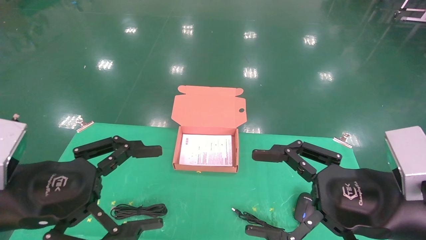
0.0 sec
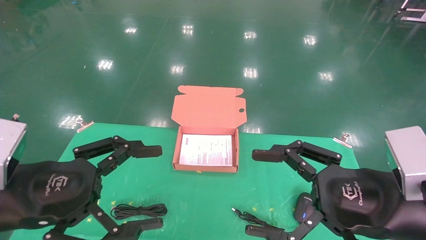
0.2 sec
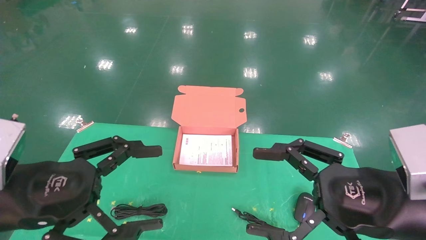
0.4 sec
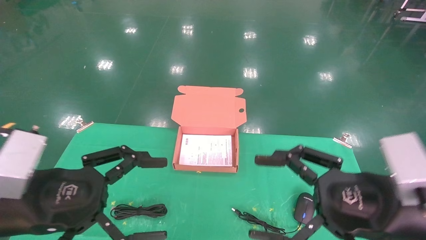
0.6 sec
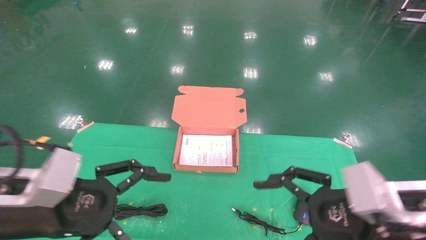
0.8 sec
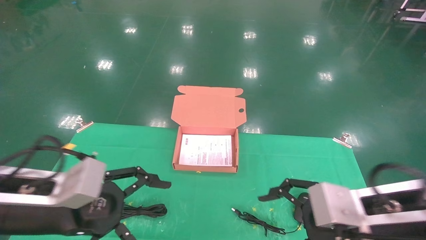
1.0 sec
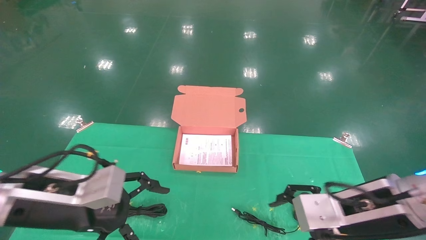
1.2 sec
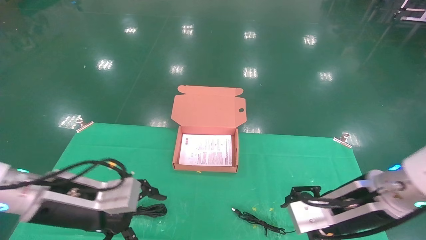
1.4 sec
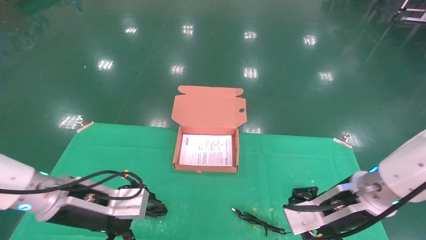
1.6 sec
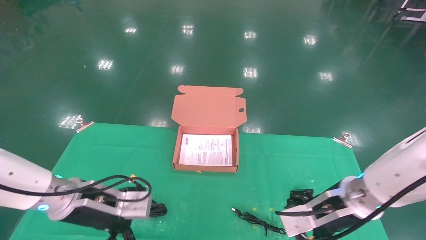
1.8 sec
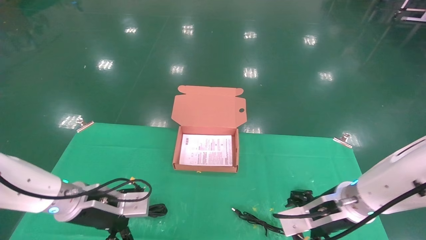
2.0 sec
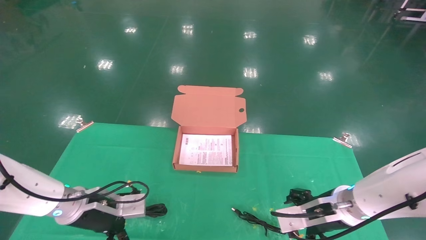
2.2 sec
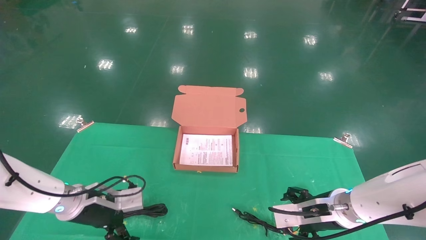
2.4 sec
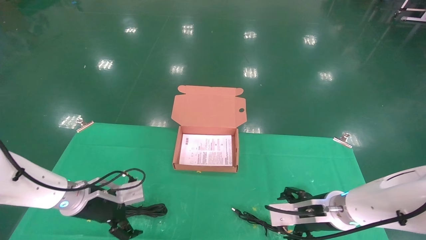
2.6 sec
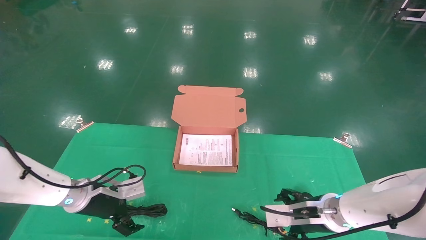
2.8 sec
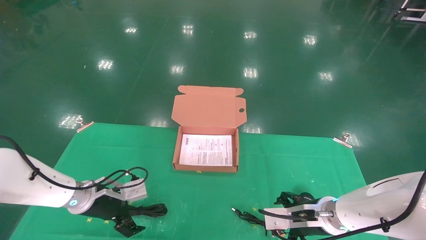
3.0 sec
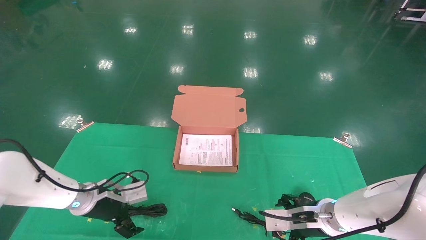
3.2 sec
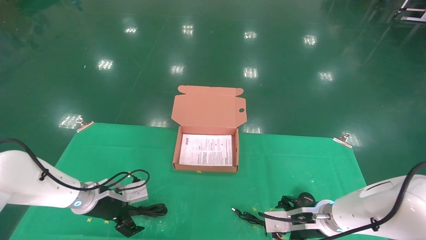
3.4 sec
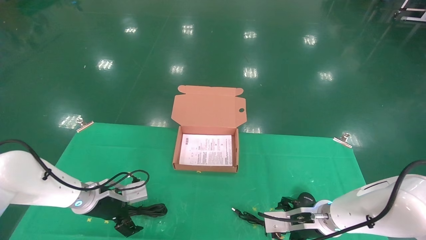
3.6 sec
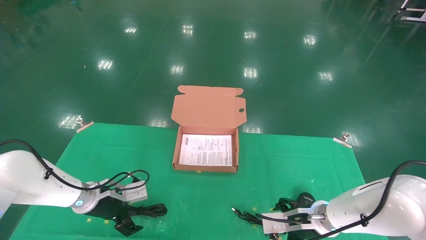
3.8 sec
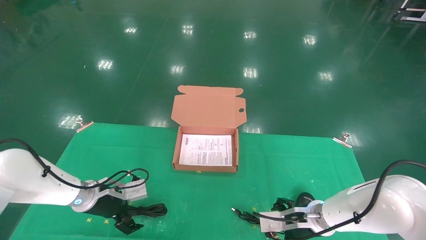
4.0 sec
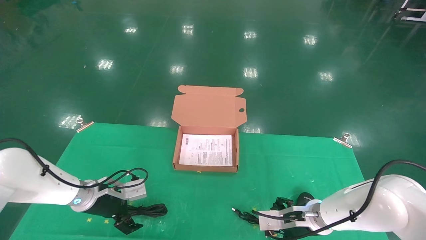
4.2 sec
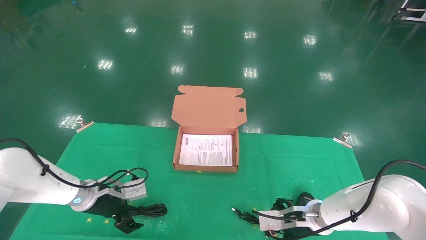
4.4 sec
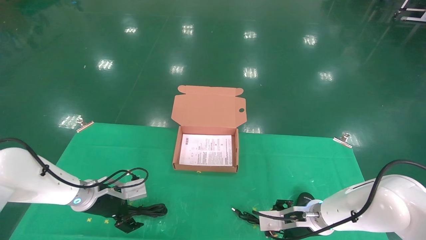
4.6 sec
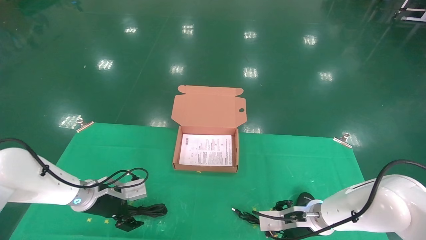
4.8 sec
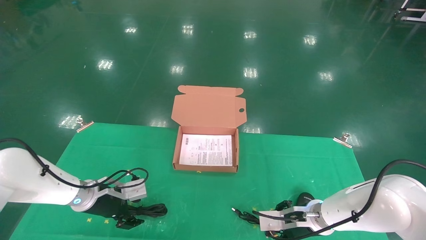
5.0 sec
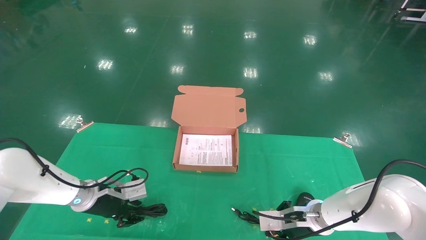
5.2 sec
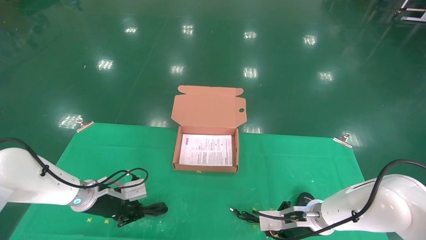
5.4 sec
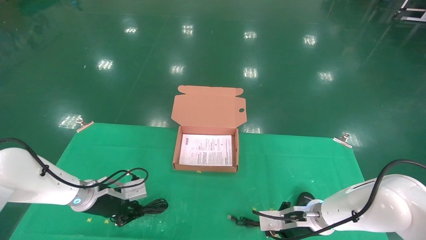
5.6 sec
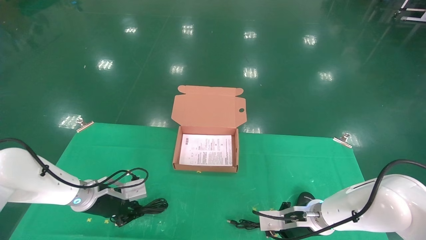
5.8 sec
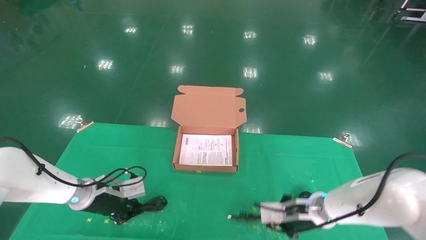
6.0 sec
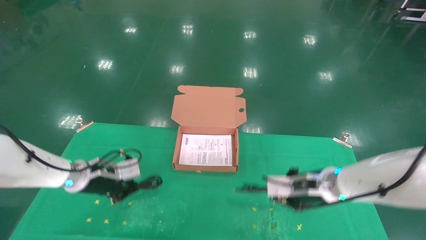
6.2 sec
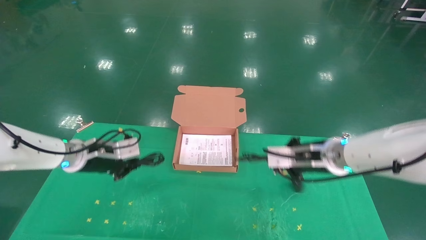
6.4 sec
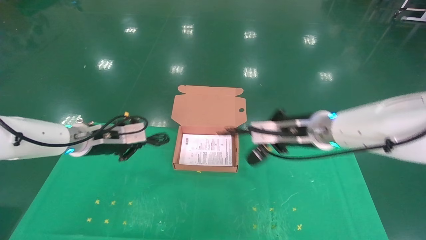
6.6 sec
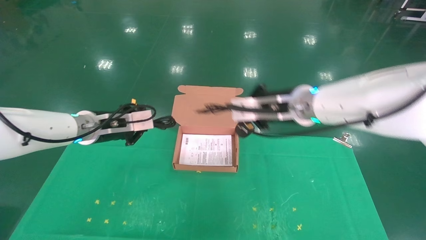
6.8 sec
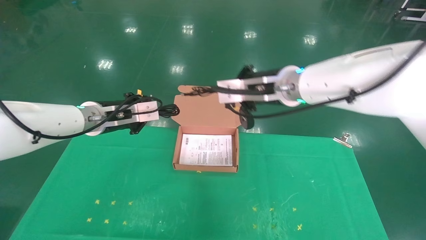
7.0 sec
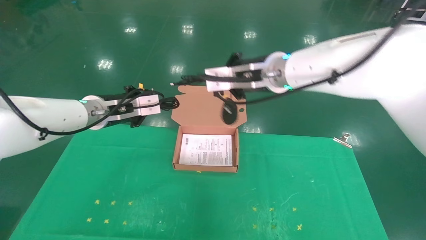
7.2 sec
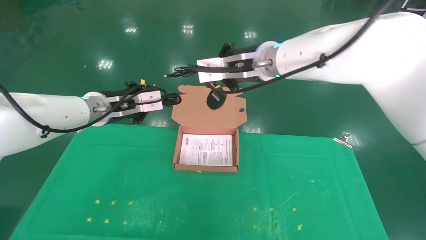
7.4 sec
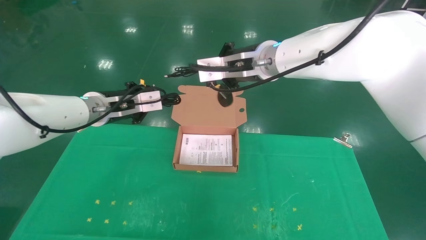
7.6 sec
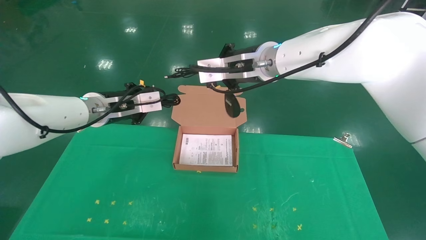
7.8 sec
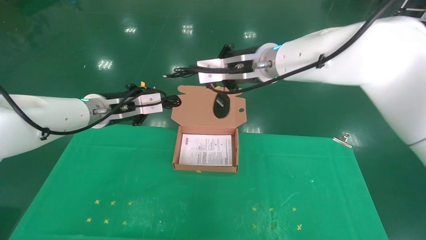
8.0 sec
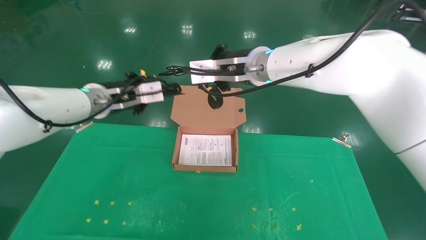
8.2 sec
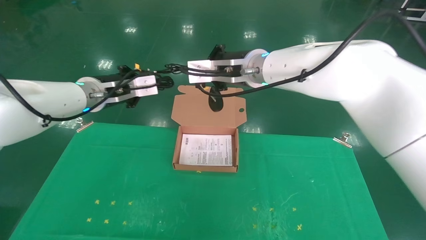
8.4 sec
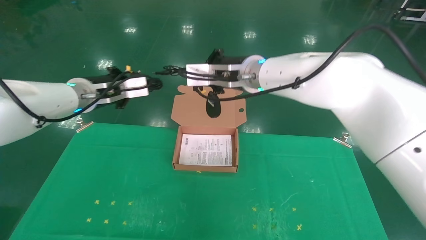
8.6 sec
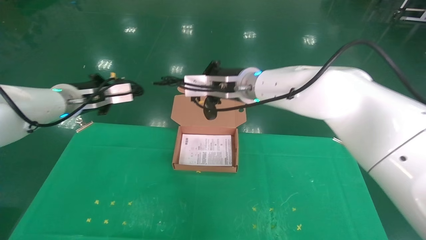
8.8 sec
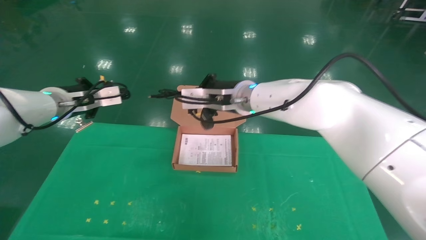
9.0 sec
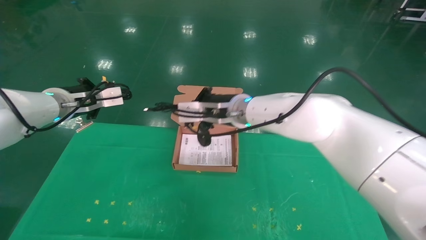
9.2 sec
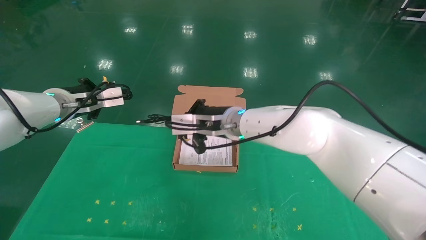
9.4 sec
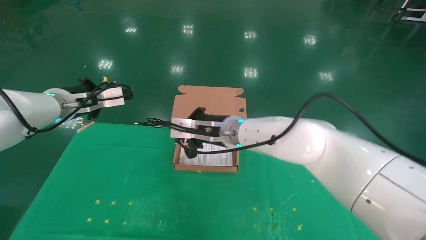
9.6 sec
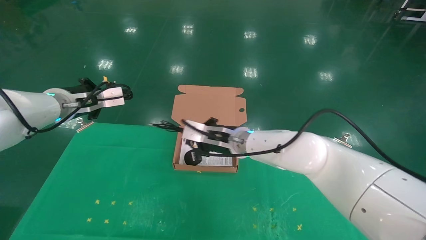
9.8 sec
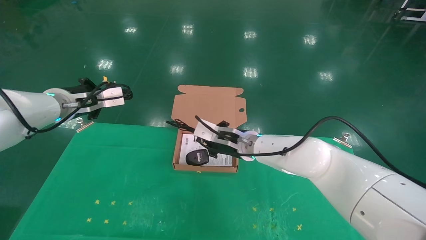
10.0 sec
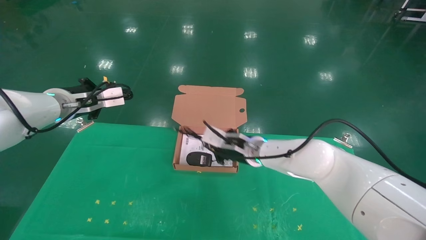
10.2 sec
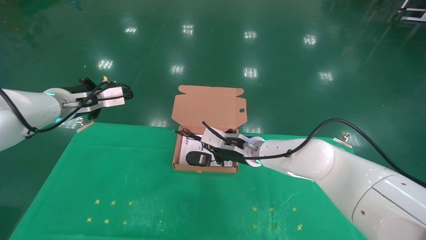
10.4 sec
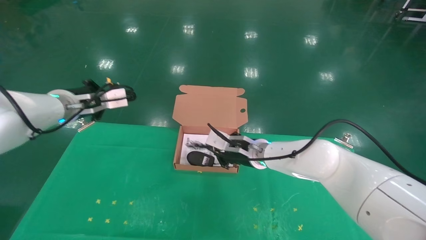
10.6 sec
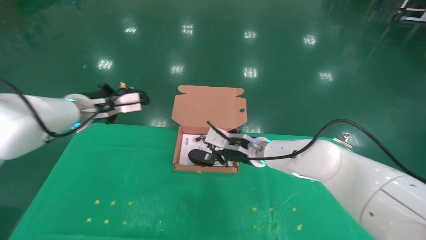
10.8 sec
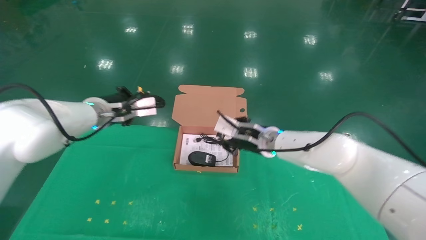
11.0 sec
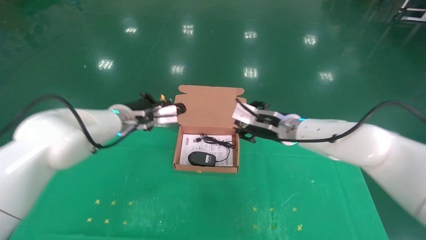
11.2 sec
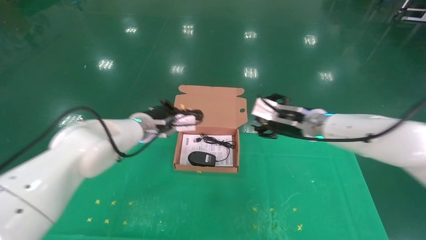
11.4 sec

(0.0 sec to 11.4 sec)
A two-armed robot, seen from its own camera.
Task of the whole recording: grasp data cable left put into box grasp mouse right put into box.
Step, 0.6 sec - 5.6 sec: Grab and pick up both the mouse and power cord from the accessory packaging area at the same time.
0.0 sec - 1.4 sec: The left gripper is displaced forward and downward by some 10 cm. Meanwhile the right gripper is displaced forward by roughly 10 cm.
1.4 sec - 2.8 sec: The left gripper shifts approximately 15 cm forward and downward. Meanwhile the right gripper shifts about 10 cm downward and forward.
2.8 sec - 4.2 sec: The right gripper moves about 5 cm.
4.2 sec - 5.6 sec: The left gripper closes its fingers. The right gripper closes its fingers.
5.6 sec - 7.2 sec: The left gripper is displaced upward by about 20 cm. The right gripper is displaced upward by about 30 cm.
7.2 sec - 8.6 sec: The right gripper shifts by about 5 cm.
8.6 sec - 10.0 sec: The right gripper shifts approximately 15 cm downward.
10.0 sec - 11.4 sec: The right gripper heads to the right and upward, covering about 15 cm, and opens. The left gripper is displaced to the right and downward by some 20 cm.

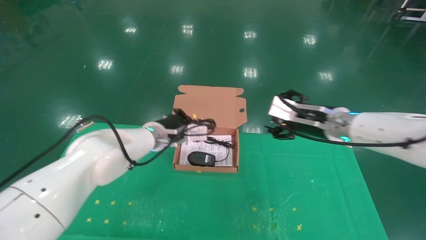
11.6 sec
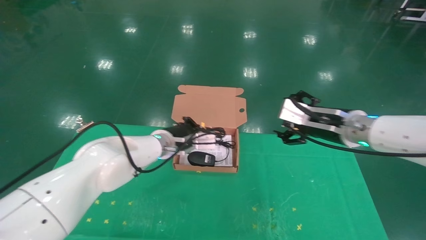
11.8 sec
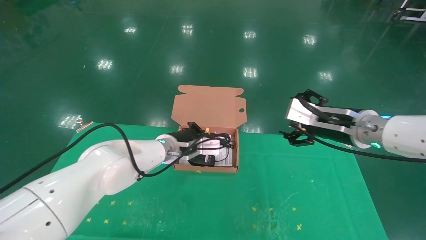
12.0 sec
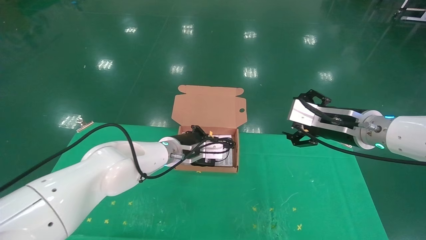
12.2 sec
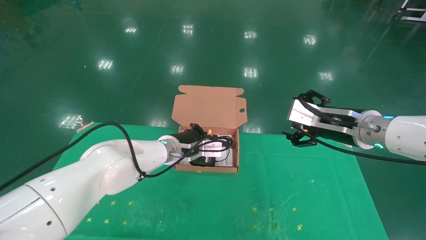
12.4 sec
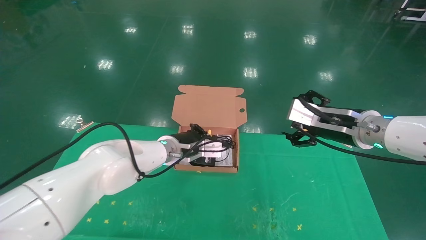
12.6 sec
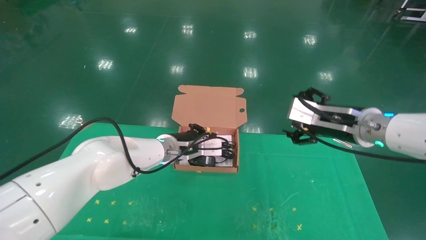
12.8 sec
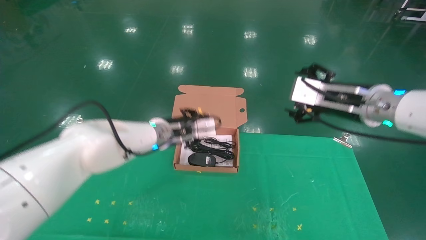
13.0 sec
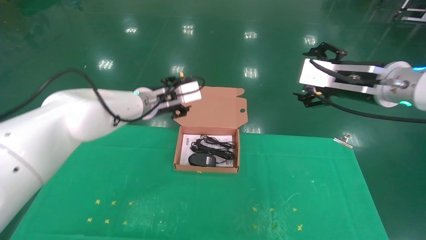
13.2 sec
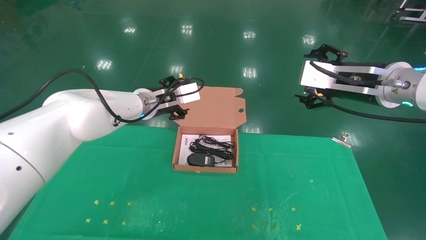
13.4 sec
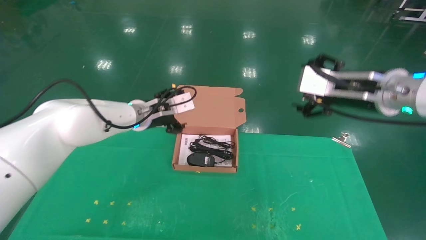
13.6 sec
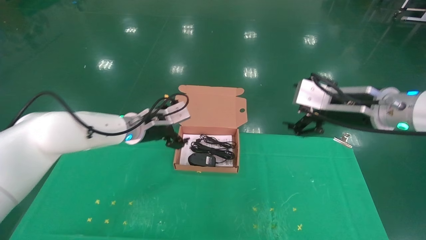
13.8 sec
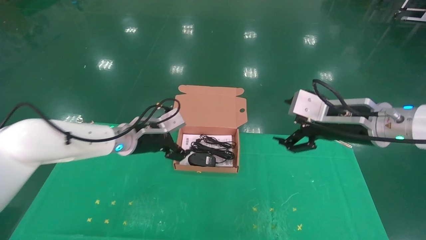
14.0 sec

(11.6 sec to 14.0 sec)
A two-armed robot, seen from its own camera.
Task of the whole recording: grasp data cable left put into box grasp mouse right put into box.
11.6 sec - 12.8 sec: The right gripper changes place by some 5 cm.
12.8 sec - 14.0 sec: The left gripper is displaced to the left by about 5 cm, and opens.
